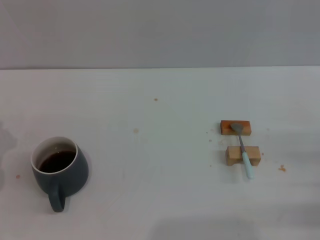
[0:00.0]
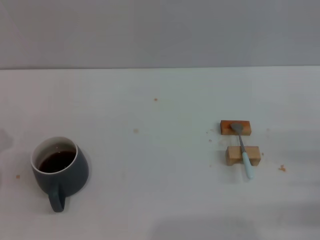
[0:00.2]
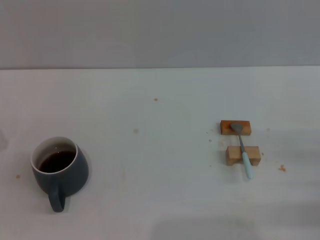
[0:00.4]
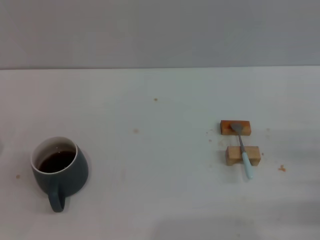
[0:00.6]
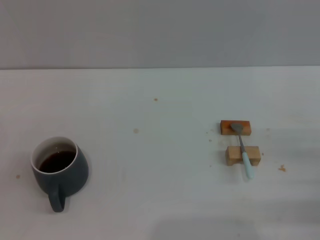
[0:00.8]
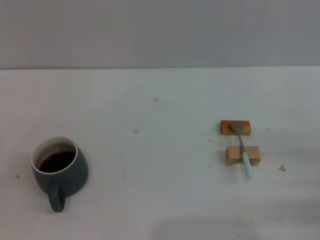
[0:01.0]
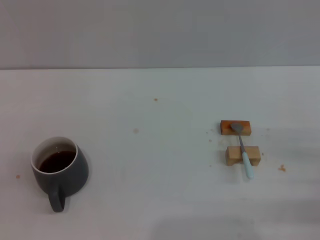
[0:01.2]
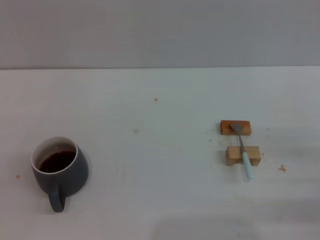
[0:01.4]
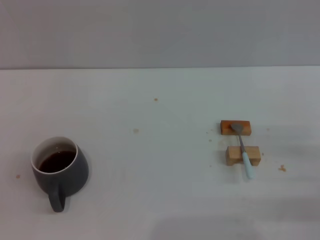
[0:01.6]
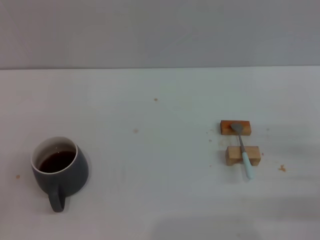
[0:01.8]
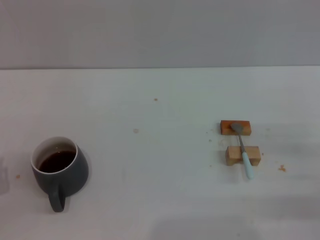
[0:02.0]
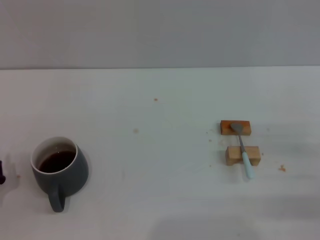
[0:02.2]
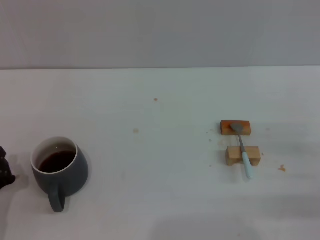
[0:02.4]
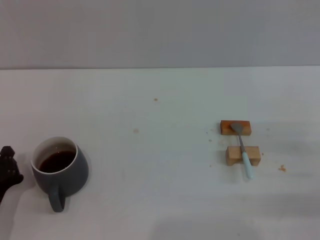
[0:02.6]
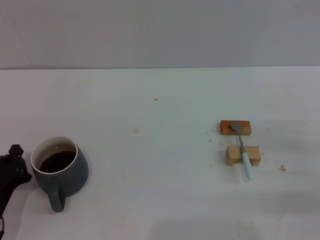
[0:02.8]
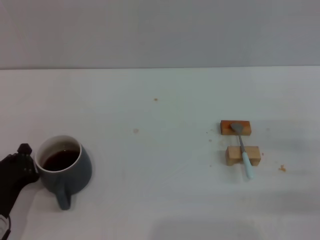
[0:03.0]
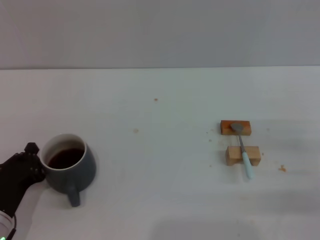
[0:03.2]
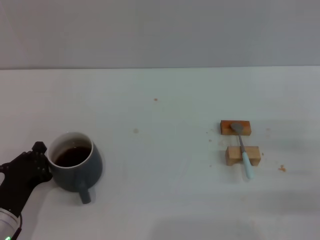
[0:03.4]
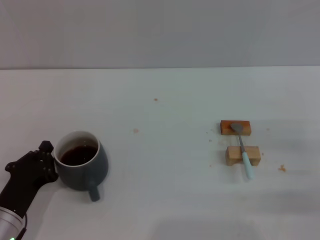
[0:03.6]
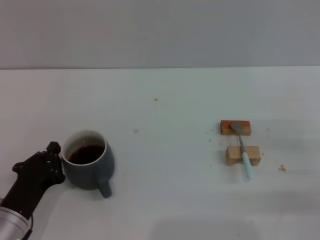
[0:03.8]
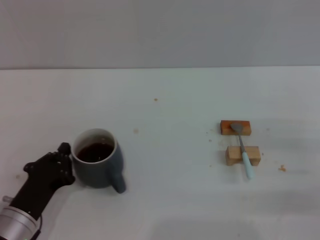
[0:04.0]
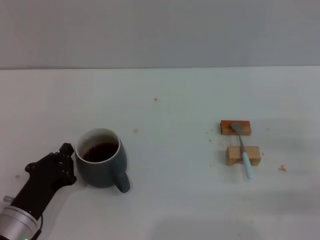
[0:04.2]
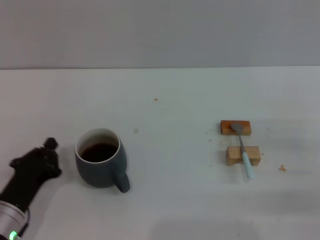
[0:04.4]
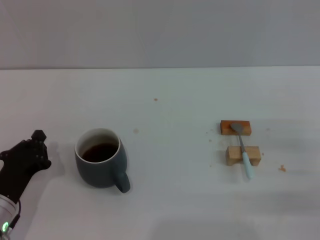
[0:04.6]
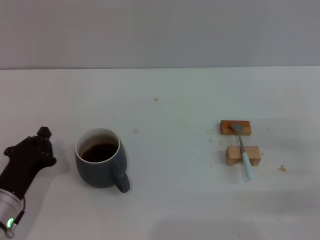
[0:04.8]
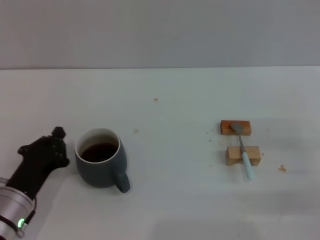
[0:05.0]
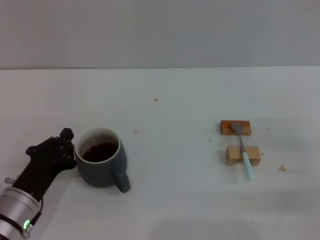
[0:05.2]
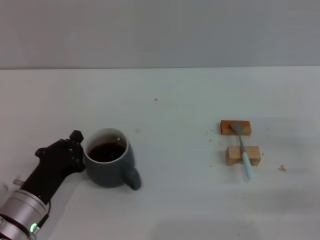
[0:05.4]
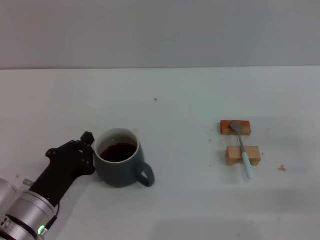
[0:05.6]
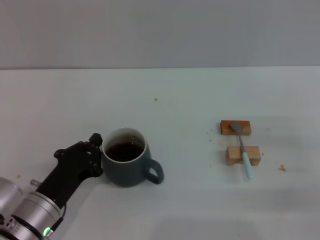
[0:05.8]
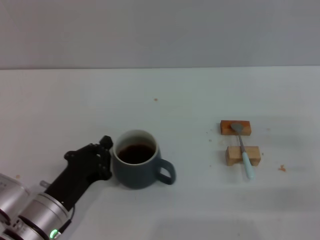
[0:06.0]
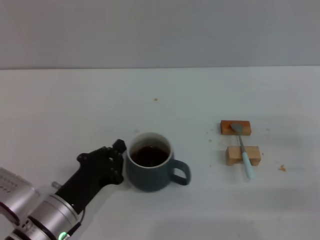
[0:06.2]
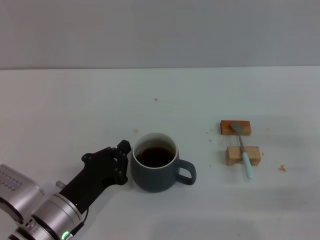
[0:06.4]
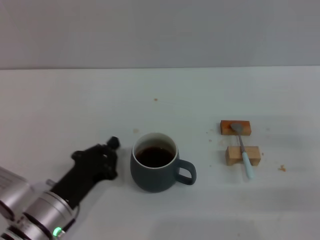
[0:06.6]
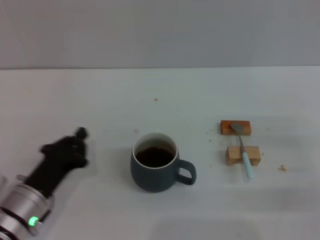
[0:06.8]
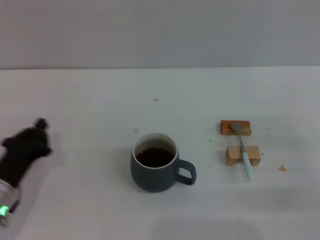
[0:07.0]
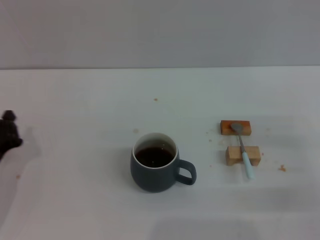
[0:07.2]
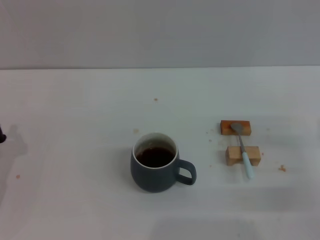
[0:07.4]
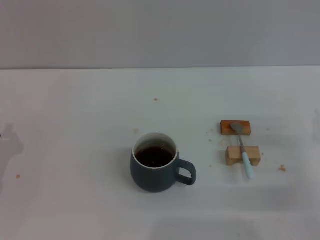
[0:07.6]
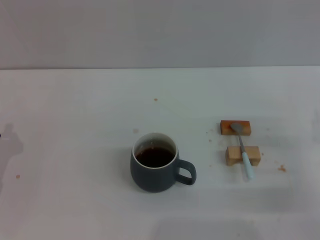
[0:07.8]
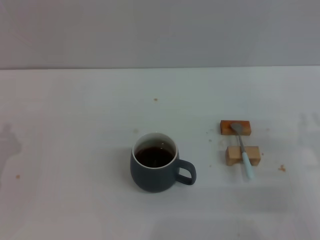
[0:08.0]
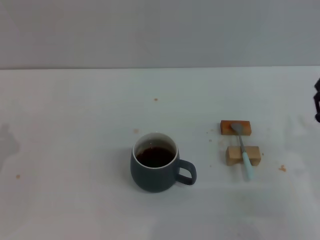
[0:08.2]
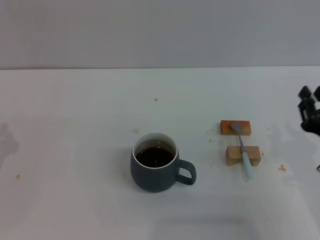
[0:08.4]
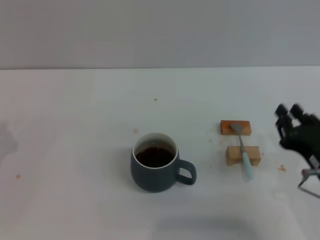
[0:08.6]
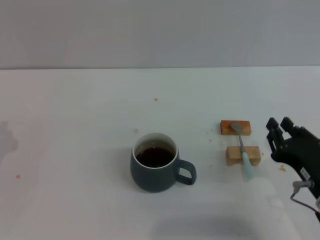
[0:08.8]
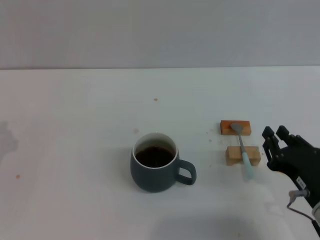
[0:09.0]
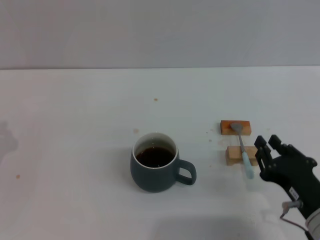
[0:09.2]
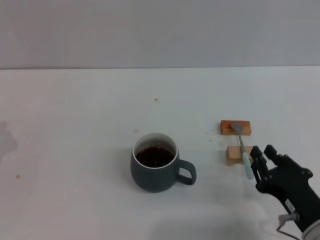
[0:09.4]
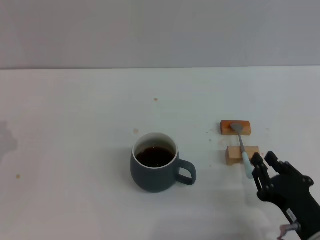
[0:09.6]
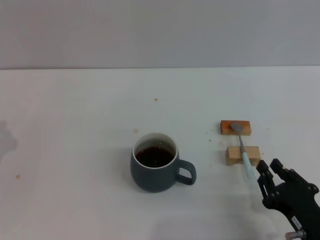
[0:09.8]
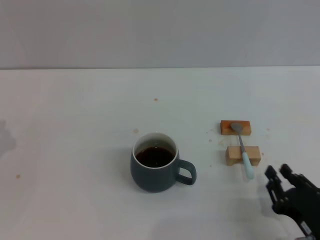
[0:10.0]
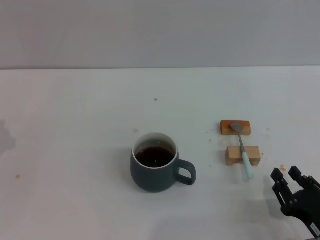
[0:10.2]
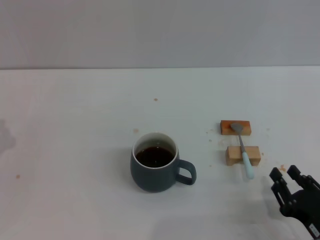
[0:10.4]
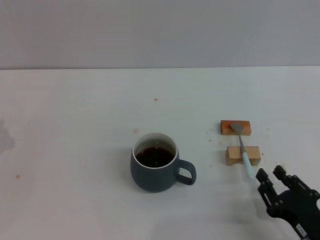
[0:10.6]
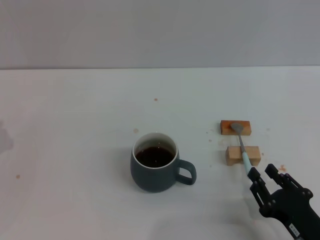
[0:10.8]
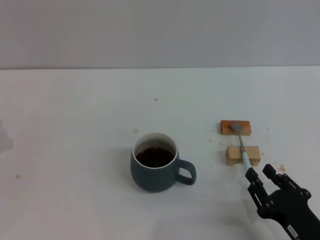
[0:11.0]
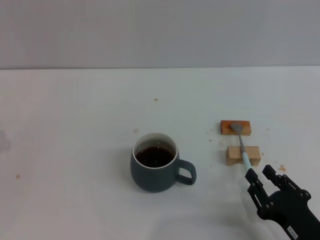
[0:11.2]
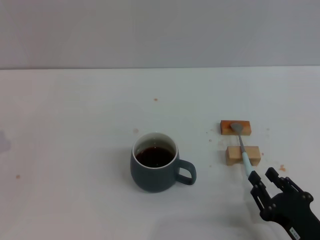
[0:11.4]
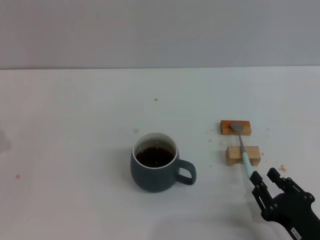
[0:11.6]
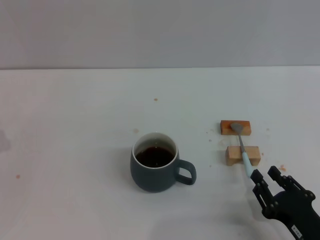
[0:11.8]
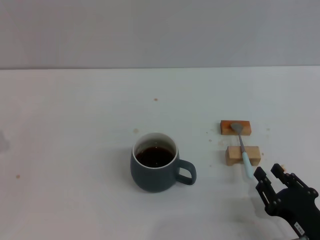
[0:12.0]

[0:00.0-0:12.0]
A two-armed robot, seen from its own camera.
Task of the whole recording: Move the grey cup to the center, lift the blue spoon, stir it three times in the cup, and put the spoon into the cup.
Step, 0:00.0 to 0:06.6: Move the cup with coffee to the center of view with the left gripper.
0:01.6 to 0:03.0: The left gripper travels to the right by approximately 5 cm, and closes up.
0:03.0 to 0:04.4: There are only small adjustments of the grippers.
0:04.4 to 0:06.0: The left gripper ends up approximately 5 cm from where it was.
0:06.0 to 0:07.6: The left gripper shifts roughly 15 cm to the left.
0:07.6 to 0:09.0: The right gripper is displaced to the left and backward by approximately 10 cm.
0:09.0 to 0:10.4: The right gripper ends up approximately 5 cm from where it was.
0:10.4 to 0:12.0: There are only small adjustments of the grippers.

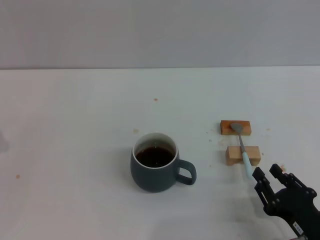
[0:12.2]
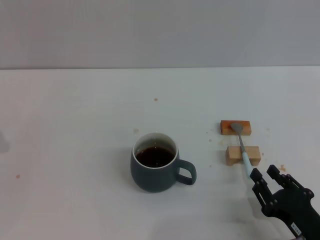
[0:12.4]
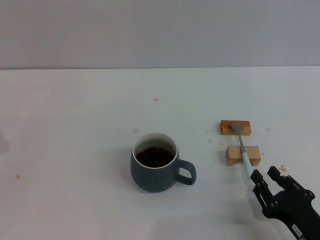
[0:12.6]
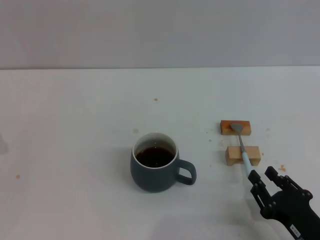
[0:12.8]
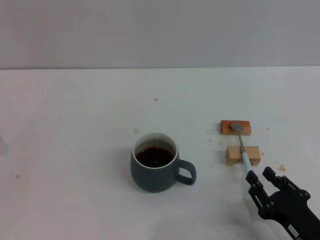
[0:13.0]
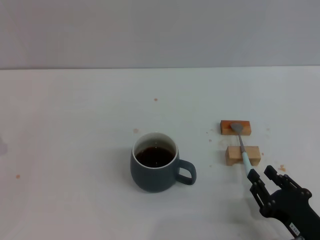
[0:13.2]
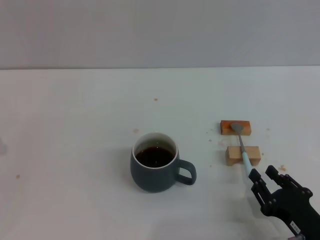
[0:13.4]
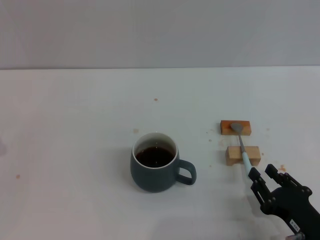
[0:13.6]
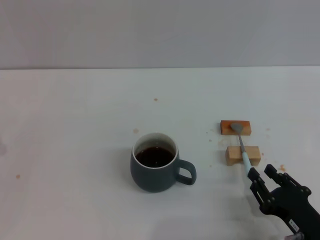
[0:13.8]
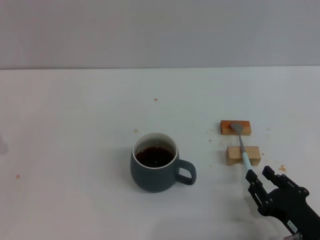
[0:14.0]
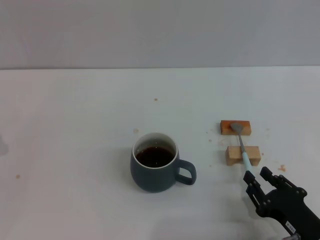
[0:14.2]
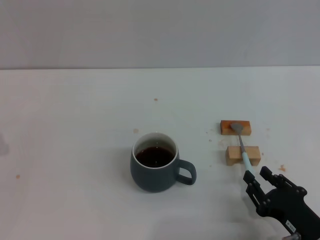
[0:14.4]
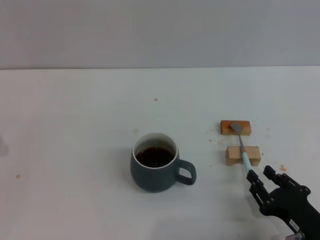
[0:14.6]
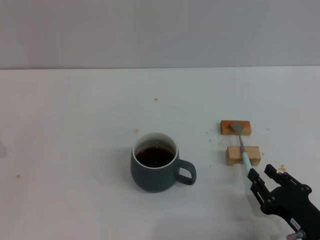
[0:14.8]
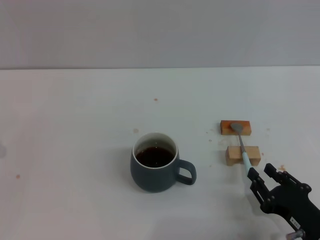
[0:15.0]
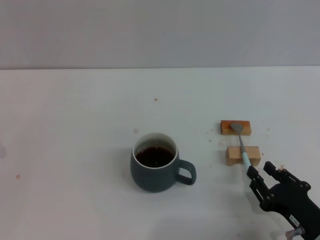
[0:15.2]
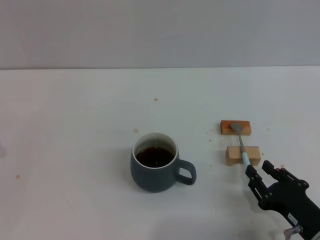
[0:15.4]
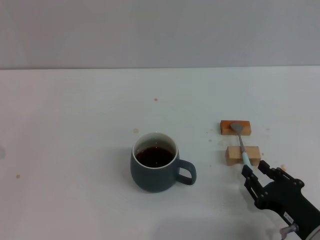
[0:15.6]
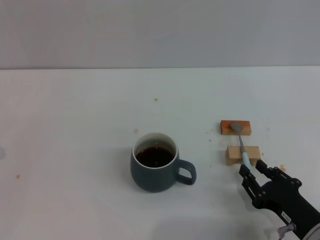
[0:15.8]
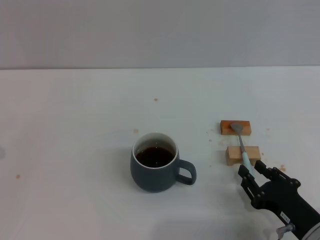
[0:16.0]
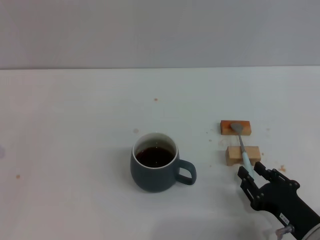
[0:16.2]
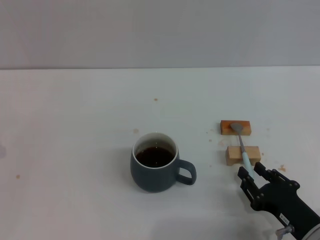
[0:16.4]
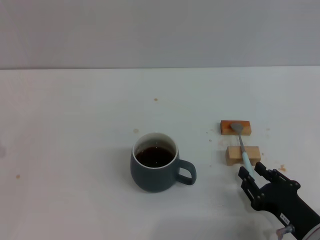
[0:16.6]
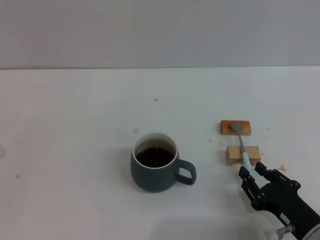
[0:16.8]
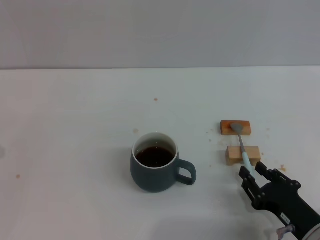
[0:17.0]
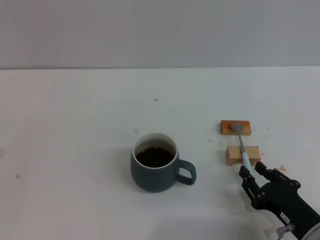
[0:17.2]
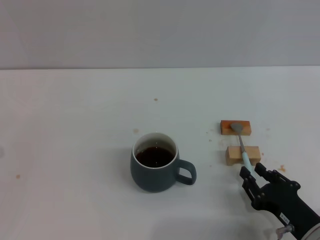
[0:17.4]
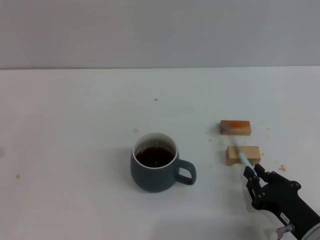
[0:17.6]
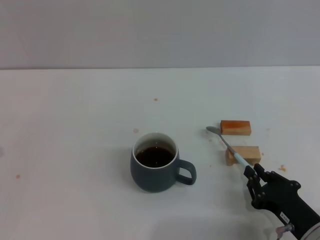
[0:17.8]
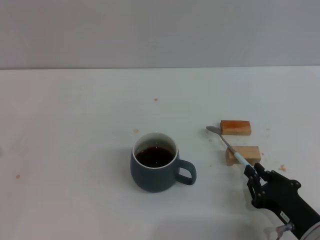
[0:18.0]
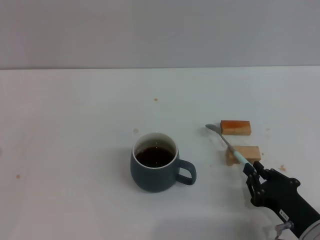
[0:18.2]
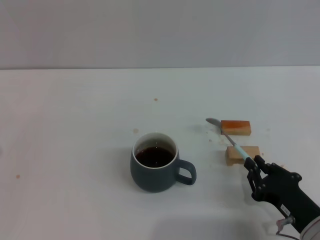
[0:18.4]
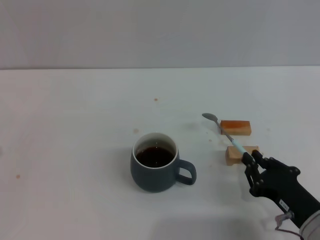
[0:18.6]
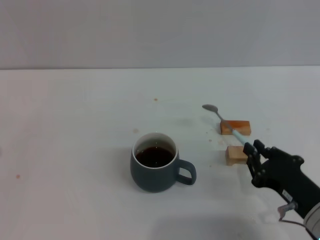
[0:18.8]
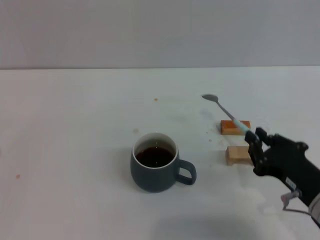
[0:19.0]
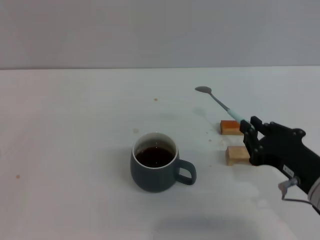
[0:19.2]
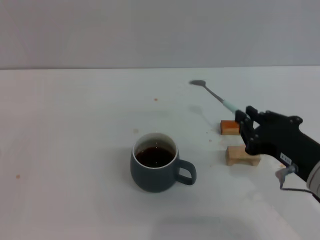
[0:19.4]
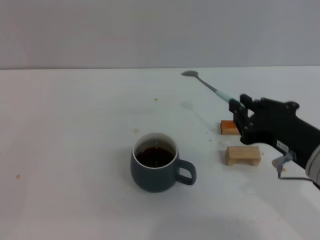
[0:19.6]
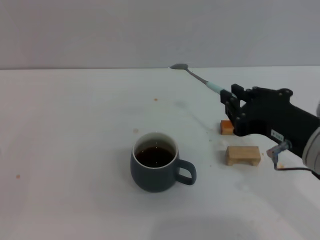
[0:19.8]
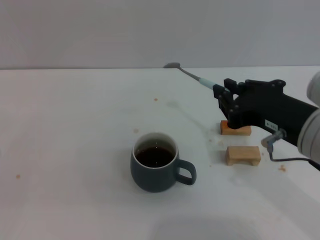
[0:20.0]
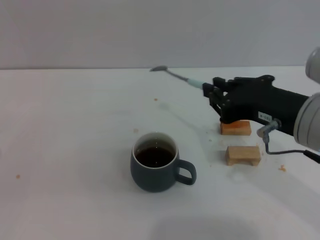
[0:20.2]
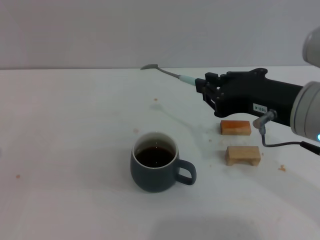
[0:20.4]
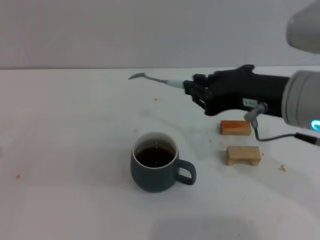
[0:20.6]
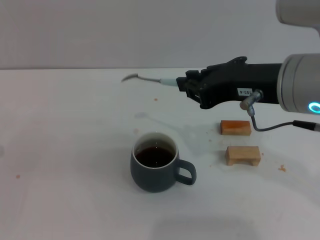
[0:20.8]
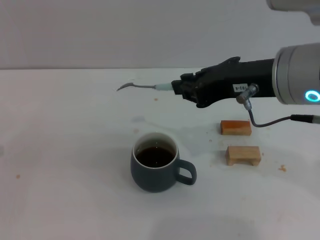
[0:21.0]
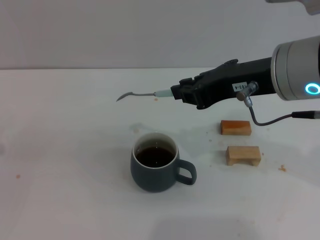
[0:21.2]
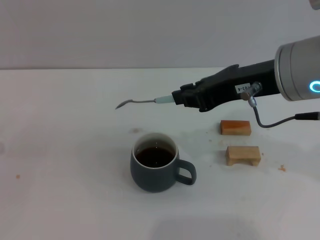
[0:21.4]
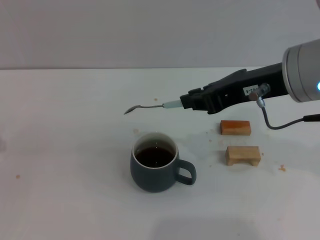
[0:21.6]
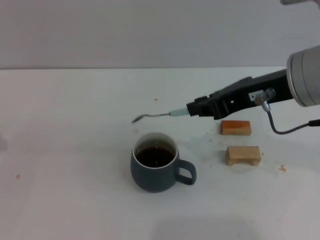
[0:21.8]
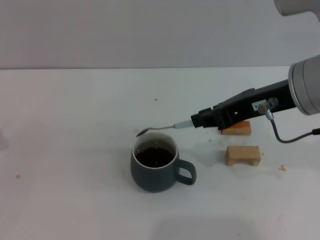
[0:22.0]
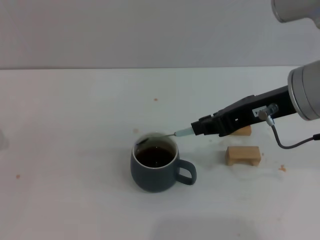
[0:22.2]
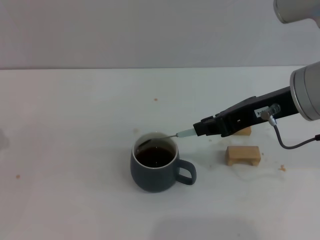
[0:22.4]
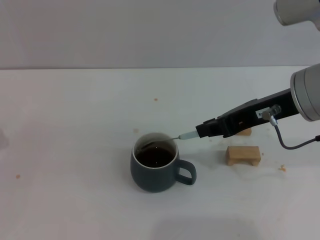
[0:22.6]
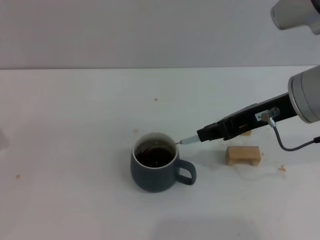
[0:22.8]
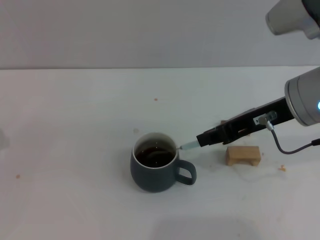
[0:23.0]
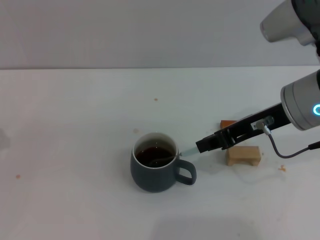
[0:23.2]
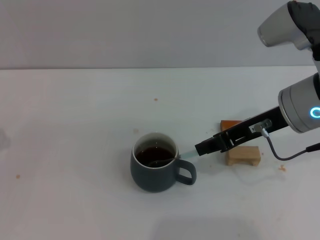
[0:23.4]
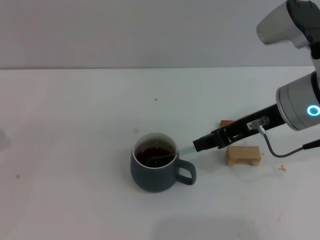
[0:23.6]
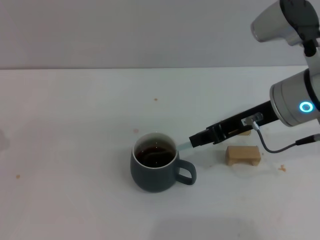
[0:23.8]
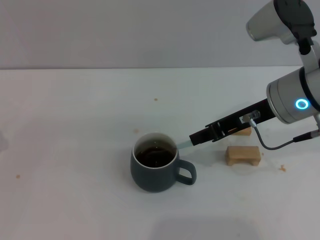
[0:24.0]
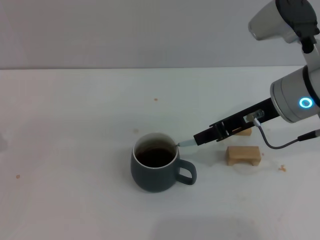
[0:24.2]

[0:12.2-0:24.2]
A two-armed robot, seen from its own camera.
Task of the whole recording: Move the grey cup to the center, lift the blue spoon, stir it three times in the cup, and put the spoon into the cup.
Step, 0:12.2 to 0:18.8: Pick up the spoon with the right gripper.
0:12.2 to 0:13.8: Both grippers stay about where they are.
0:13.8 to 0:15.2: The two grippers keep their place.
0:15.2 to 0:16.6: Both grippers stay about where they are.
0:16.6 to 0:18.2: The right gripper closes its fingers.
0:18.2 to 0:19.8: The right gripper goes some 20 cm upward.
0:19.8 to 0:21.2: The right gripper heads upward and forward, covering approximately 10 cm.
0:21.2 to 0:22.6: The grippers make only small movements.
0:22.6 to 0:24.2: The grippers stay close to where they were, moving slightly.
